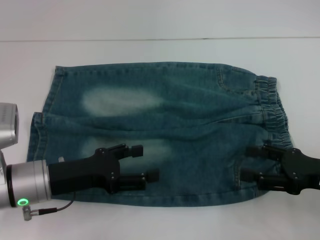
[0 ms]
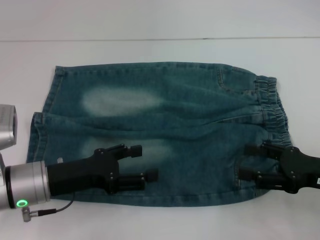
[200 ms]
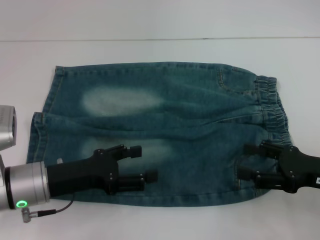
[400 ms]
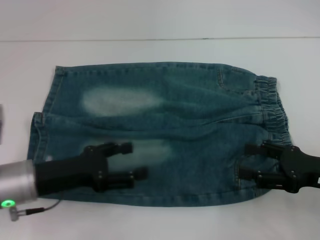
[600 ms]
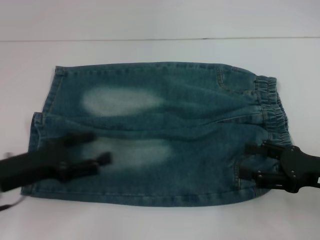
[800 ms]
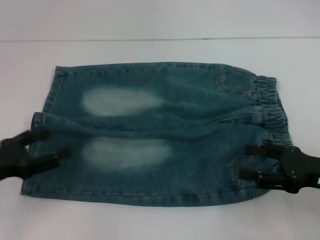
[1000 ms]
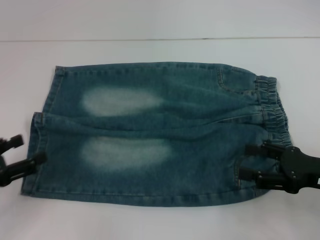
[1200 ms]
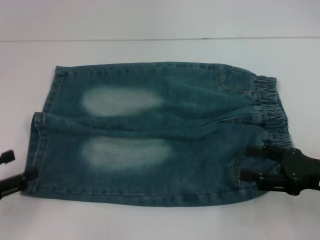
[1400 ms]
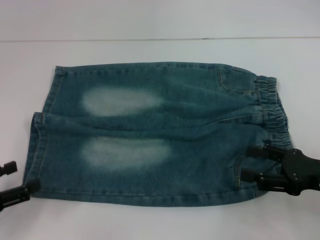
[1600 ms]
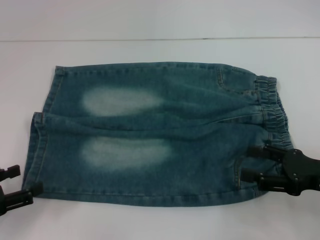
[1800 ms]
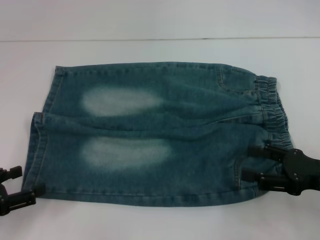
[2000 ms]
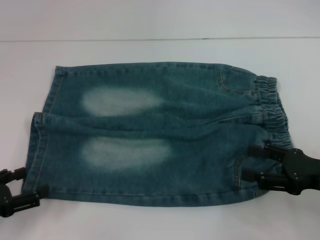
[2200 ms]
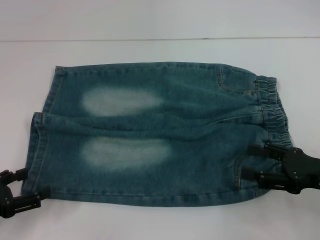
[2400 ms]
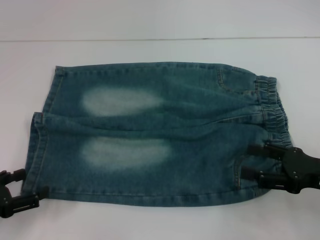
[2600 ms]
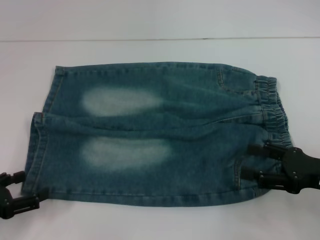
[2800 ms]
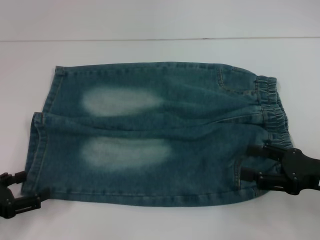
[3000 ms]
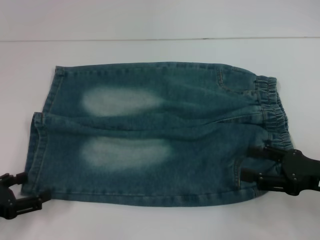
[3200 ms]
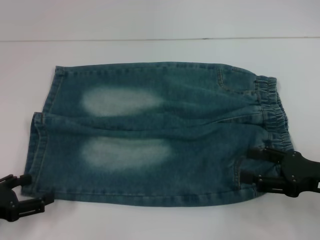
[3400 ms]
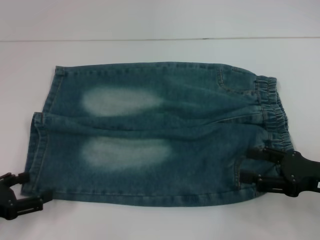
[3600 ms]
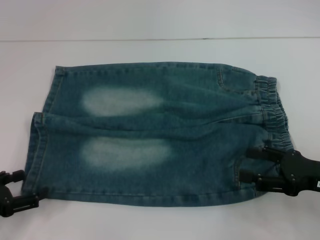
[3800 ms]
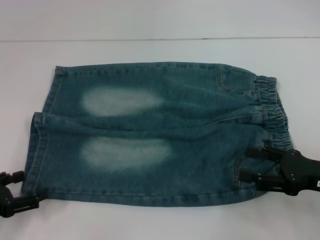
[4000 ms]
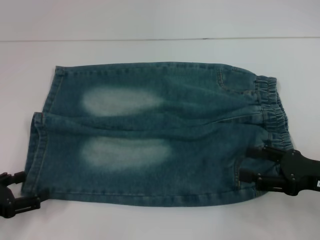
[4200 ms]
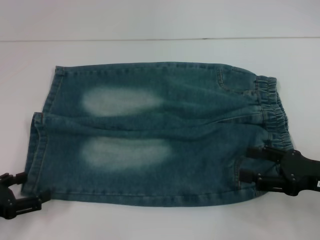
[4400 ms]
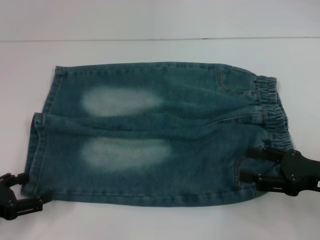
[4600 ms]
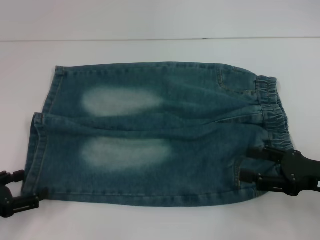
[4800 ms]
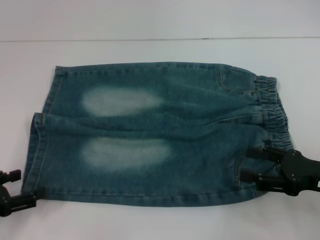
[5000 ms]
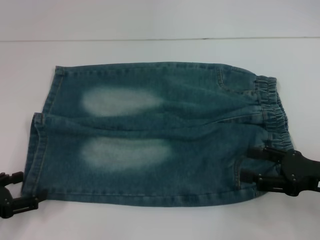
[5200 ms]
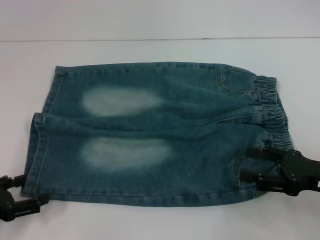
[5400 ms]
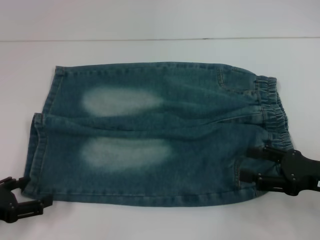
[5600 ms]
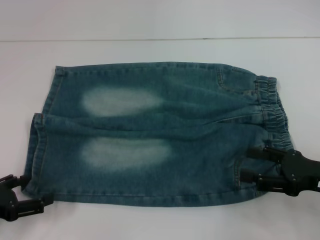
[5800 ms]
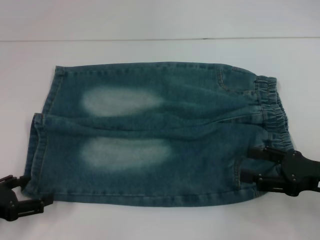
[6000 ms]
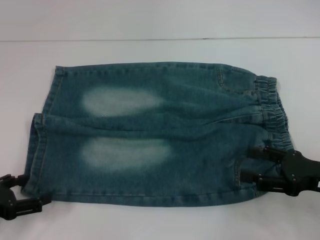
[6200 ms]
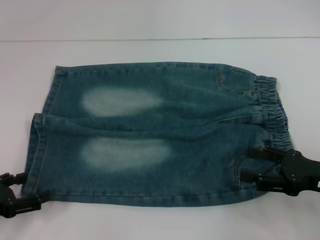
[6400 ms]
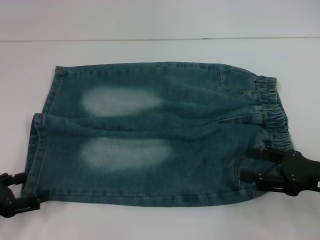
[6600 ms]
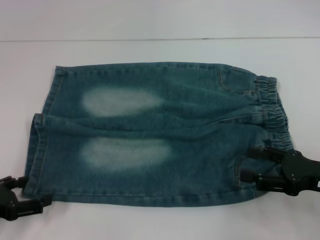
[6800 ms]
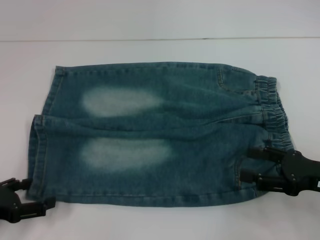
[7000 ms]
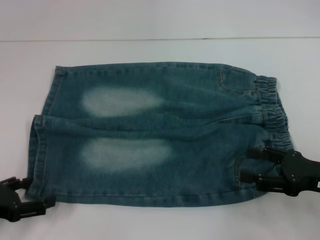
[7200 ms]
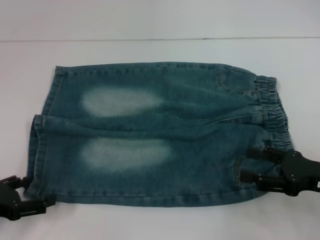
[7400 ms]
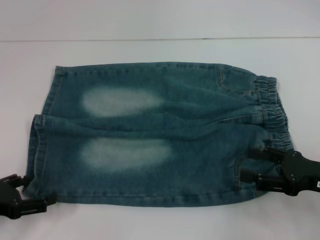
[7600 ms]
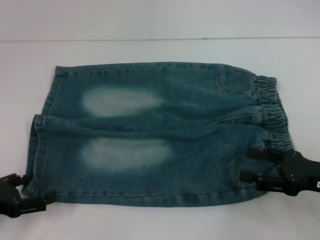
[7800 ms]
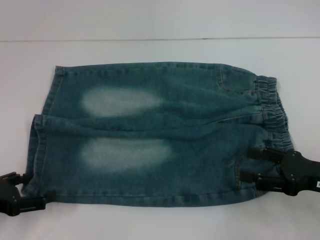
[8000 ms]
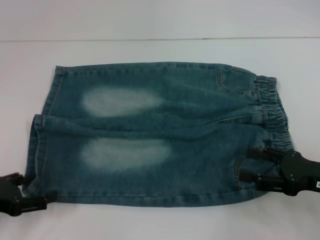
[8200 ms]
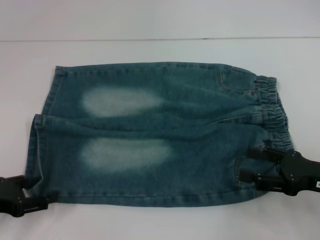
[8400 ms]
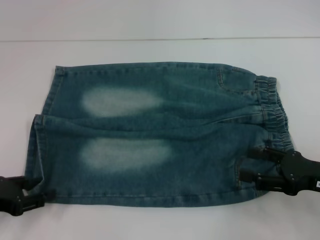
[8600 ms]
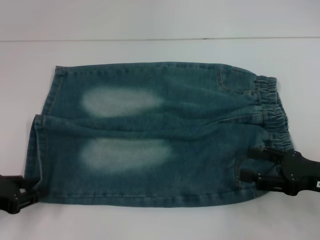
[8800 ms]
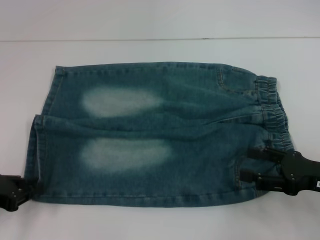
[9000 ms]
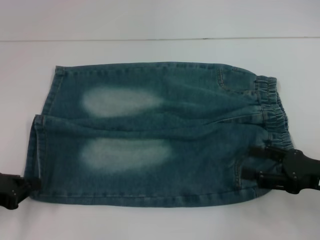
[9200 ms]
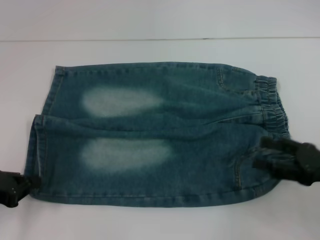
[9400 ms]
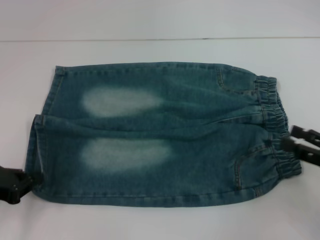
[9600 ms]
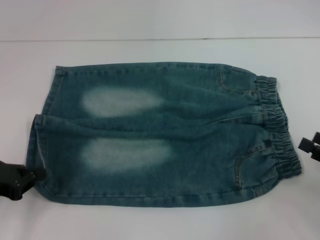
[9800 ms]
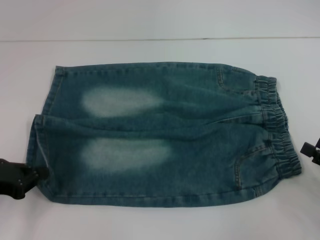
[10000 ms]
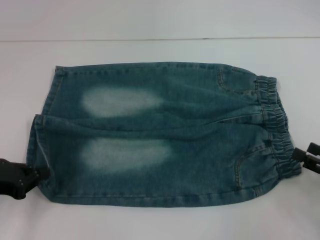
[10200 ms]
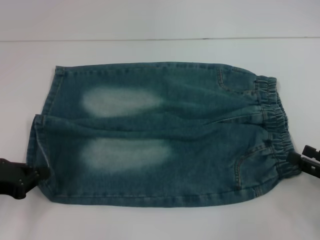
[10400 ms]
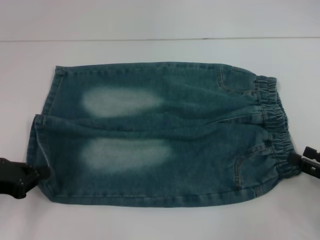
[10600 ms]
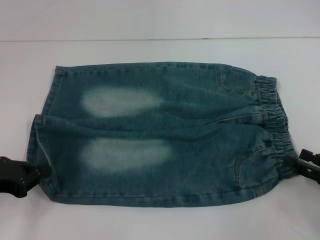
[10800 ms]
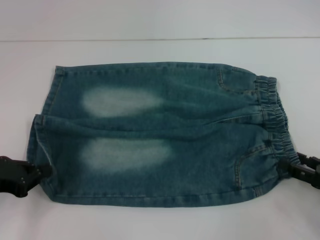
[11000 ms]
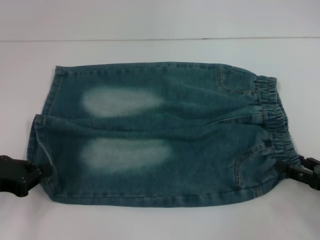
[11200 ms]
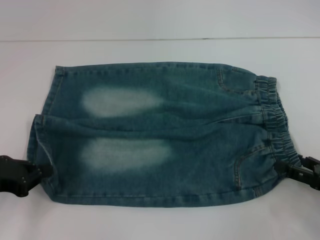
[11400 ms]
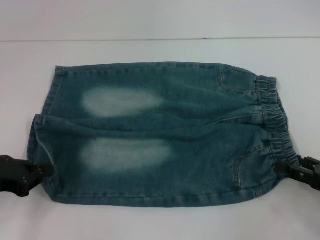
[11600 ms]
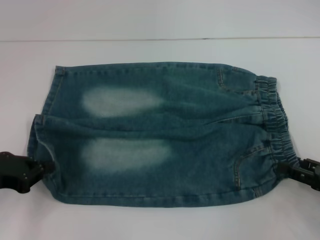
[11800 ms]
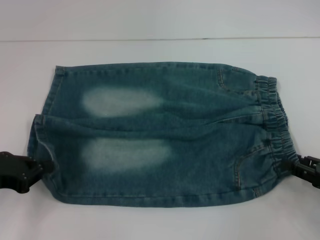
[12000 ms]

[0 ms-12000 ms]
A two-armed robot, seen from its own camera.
Step, 0 ms to 9400 ms: Grab the lower left pant leg with your left hand.
0 ms to 1600 ms: The left gripper travels to the left and backward by roughly 15 cm.
1600 ms to 3000 ms: The grippers stay close to where they were, moving slightly.
3000 ms to 6000 ms: Both grippers stay put.
6000 ms to 7600 ms: Both grippers stay about where they are.
7600 ms to 9000 ms: The left gripper closes its fingers.
9000 ms to 10400 ms: The right gripper travels to the right by roughly 5 cm.
10400 ms to 12000 ms: The grippers make only small movements.

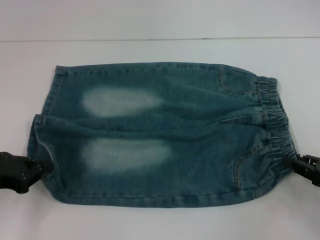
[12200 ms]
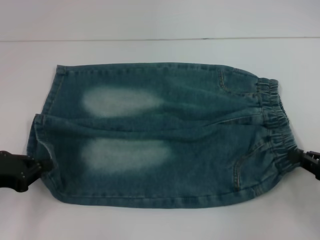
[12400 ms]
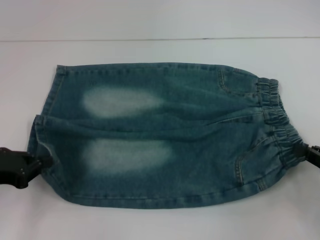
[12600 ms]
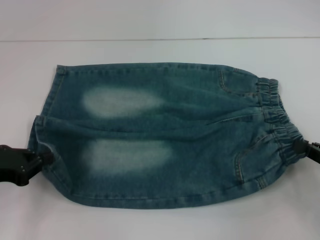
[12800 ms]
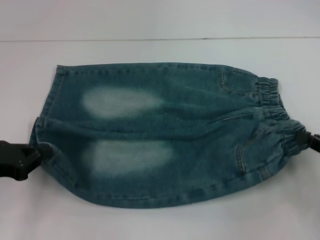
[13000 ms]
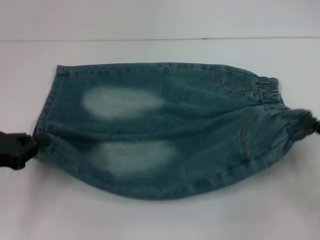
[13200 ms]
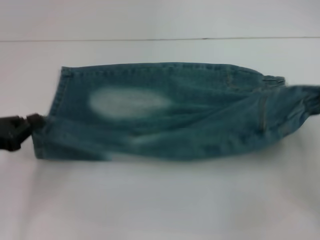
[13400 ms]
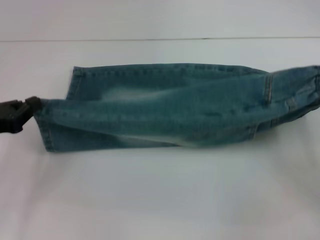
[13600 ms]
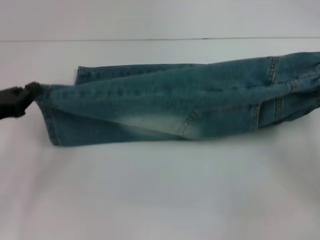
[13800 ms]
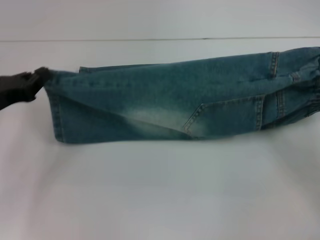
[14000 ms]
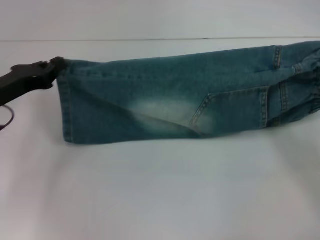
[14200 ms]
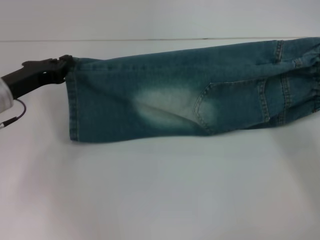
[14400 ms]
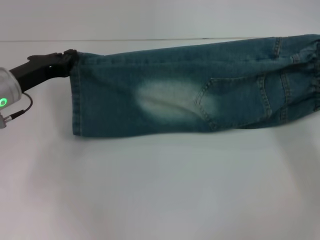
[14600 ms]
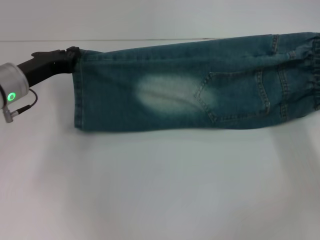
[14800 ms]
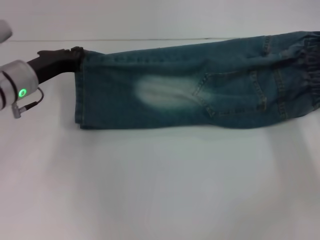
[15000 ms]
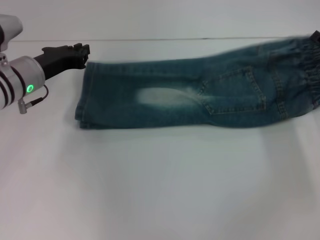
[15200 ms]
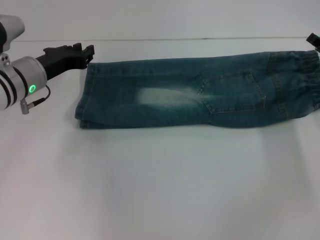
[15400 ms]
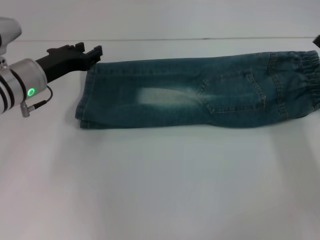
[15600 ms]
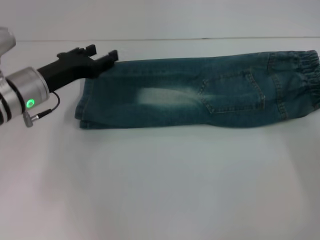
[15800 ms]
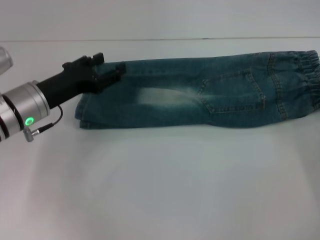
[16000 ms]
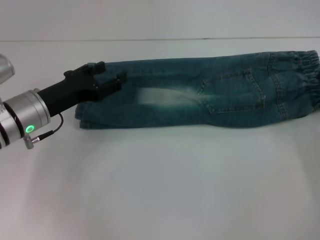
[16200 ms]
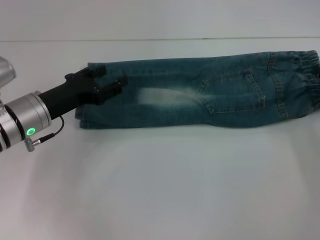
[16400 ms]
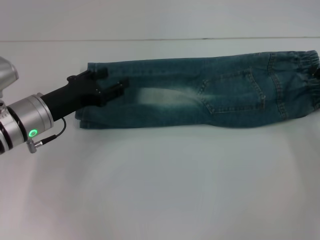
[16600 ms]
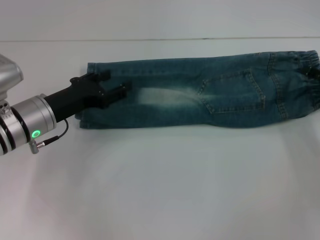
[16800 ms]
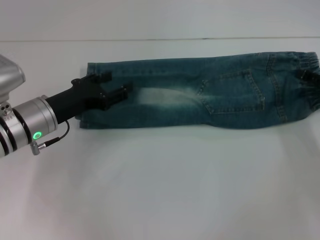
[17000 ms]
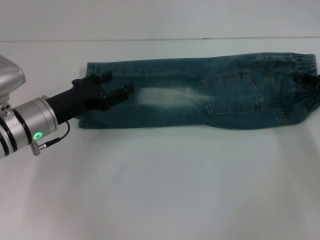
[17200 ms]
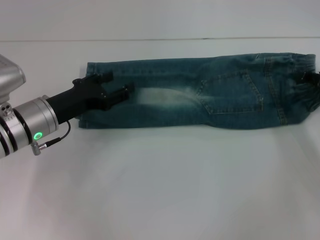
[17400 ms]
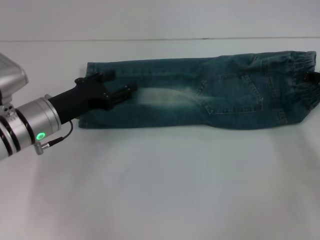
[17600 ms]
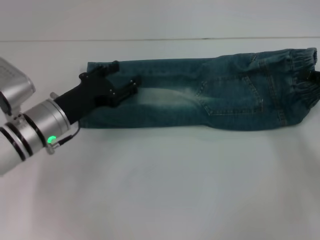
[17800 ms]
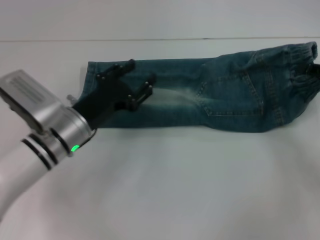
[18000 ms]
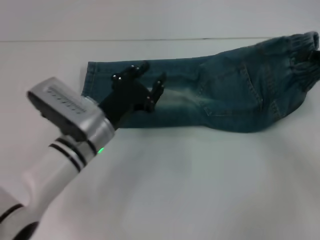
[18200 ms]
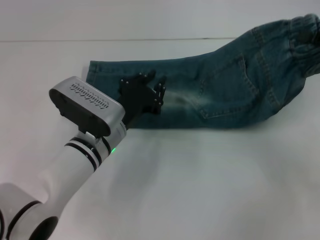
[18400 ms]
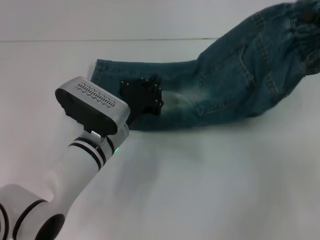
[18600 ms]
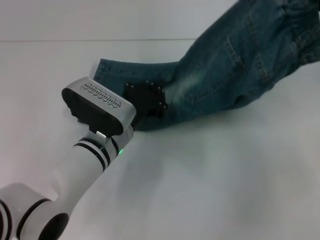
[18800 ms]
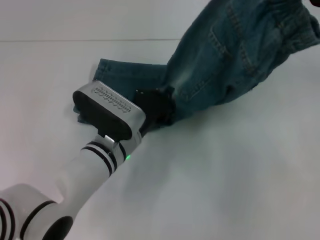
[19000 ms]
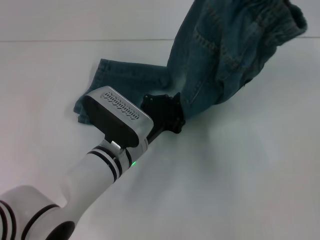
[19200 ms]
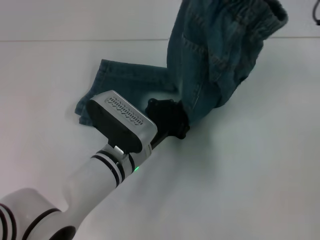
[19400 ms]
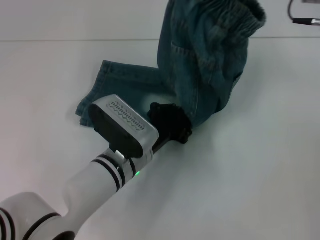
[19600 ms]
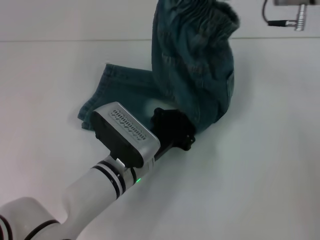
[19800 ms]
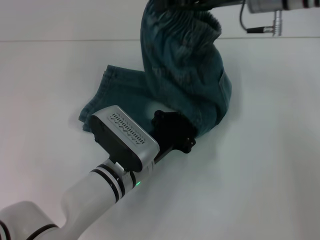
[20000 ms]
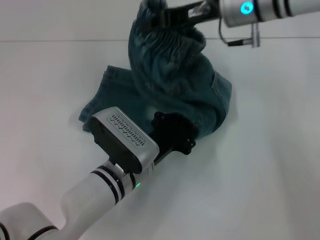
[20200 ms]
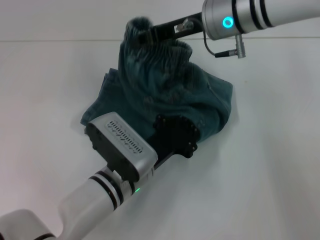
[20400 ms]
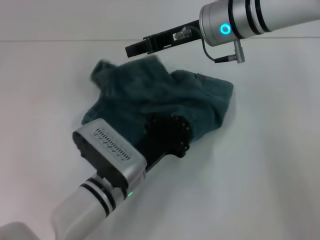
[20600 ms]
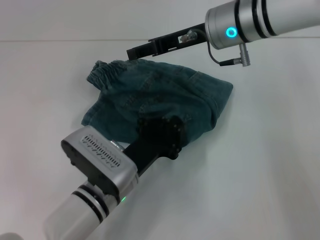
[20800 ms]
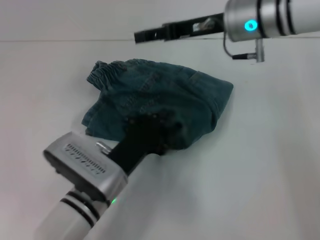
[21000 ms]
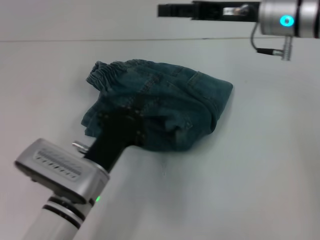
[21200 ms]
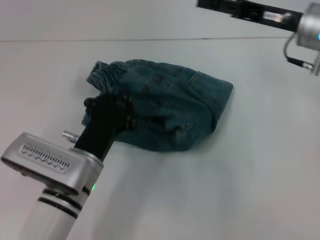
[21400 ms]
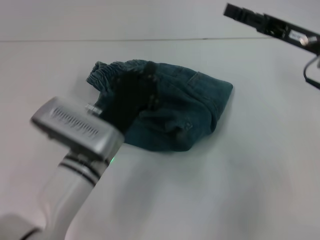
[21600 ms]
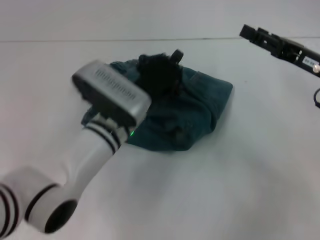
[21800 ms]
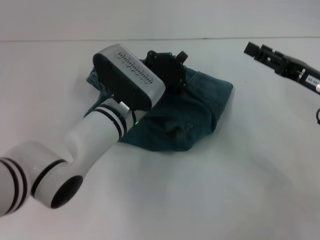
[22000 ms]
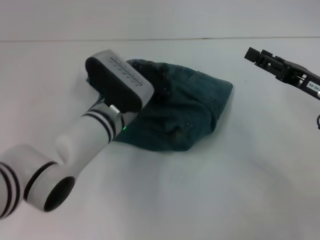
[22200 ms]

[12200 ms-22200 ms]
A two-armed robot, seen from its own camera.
Step, 12800 ms to 15200 ms: Fold upward with your right hand.
Step, 15400 ms to 17600 ms: Grab the waistband with your right hand.
Step, 18000 ms to 20600 ms: Fold to the left with your right hand.
12200 ms to 13600 ms: The right gripper moves some 5 cm, and closes up.
13600 ms to 15000 ms: The right gripper is displaced forward by approximately 10 cm, while the left gripper heads forward and to the right, covering roughly 15 cm.
15000 ms to 16400 ms: The left gripper travels backward by roughly 5 cm, and opens its fingers, while the right gripper ends up about 5 cm from where it was, and opens up.
16400 ms to 18000 ms: The right gripper changes place by about 5 cm, and closes its fingers; the left gripper moves to the right, about 5 cm.
18000 ms to 19400 ms: The left gripper shifts about 10 cm to the right, and closes up, while the right gripper moves upward, to the left and forward, some 20 cm.
19400 ms to 20800 ms: The right gripper moves to the left, approximately 15 cm. Meanwhile the left gripper ends up roughly 5 cm from where it was.
20800 ms to 22200 ms: The left gripper is displaced forward by approximately 10 cm; the right gripper heads to the right, backward and downward, covering approximately 25 cm.
